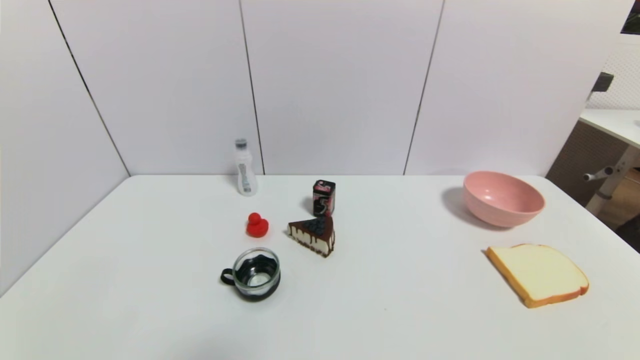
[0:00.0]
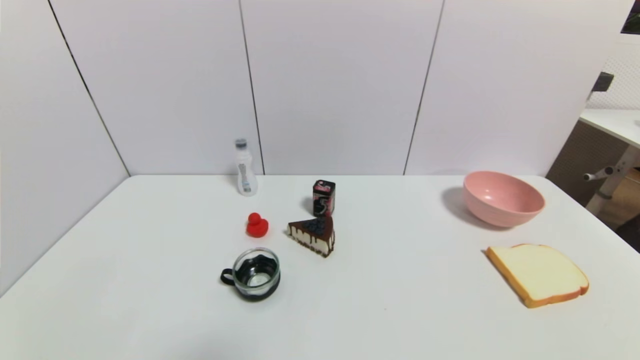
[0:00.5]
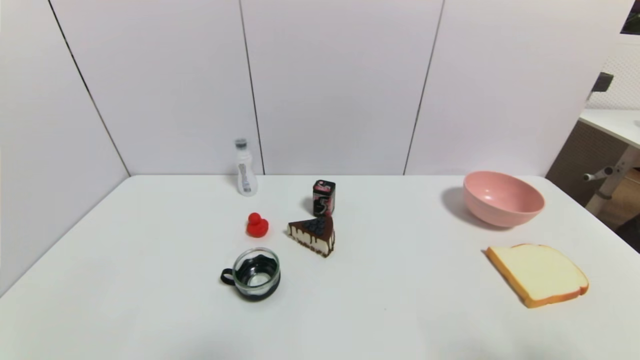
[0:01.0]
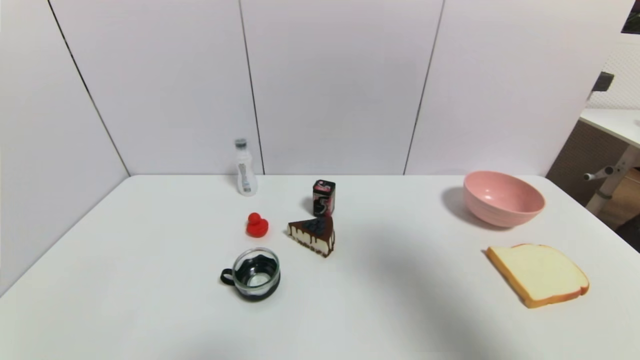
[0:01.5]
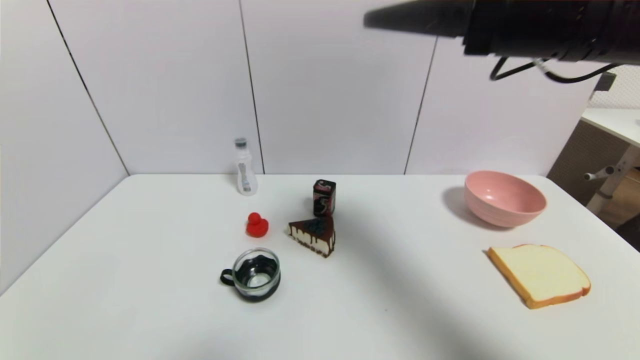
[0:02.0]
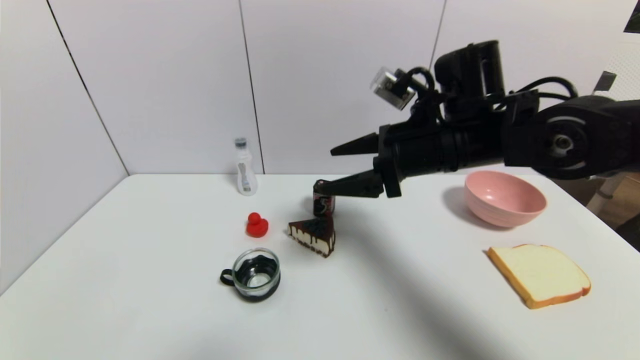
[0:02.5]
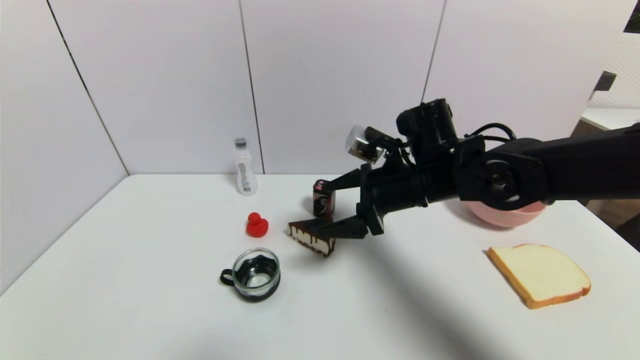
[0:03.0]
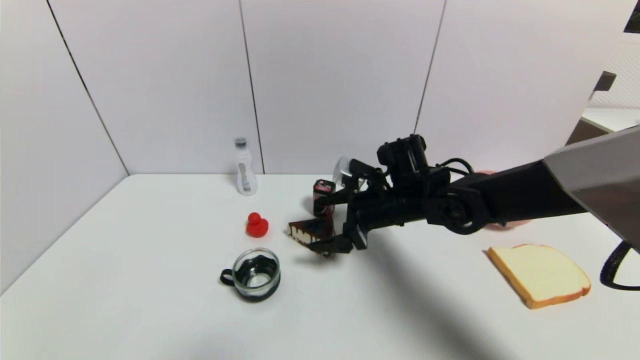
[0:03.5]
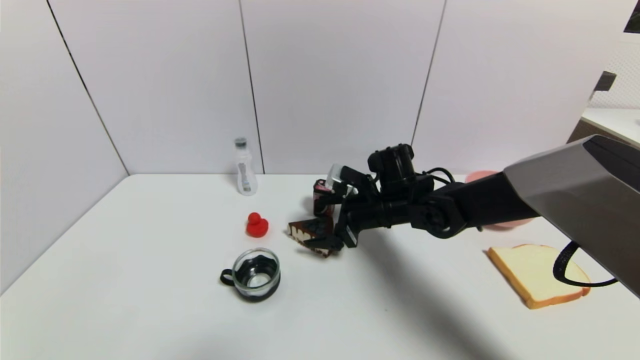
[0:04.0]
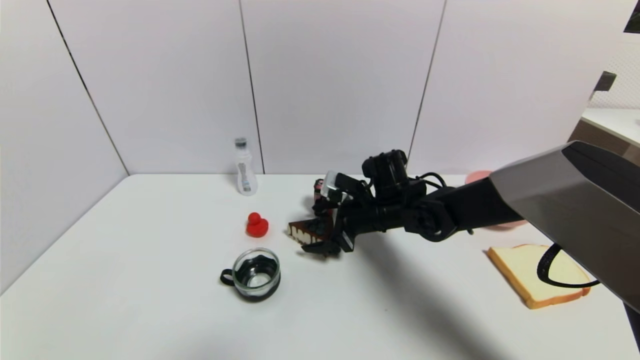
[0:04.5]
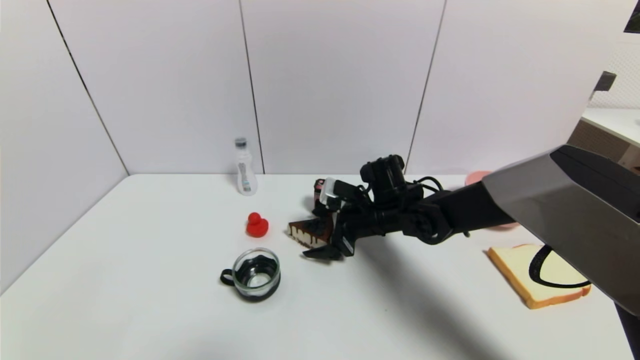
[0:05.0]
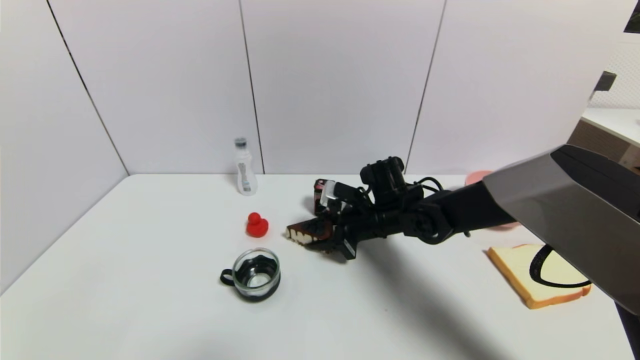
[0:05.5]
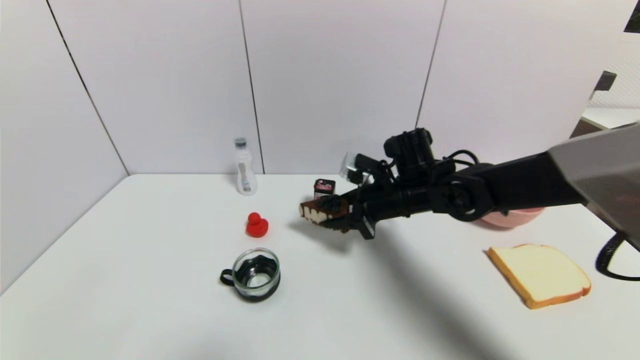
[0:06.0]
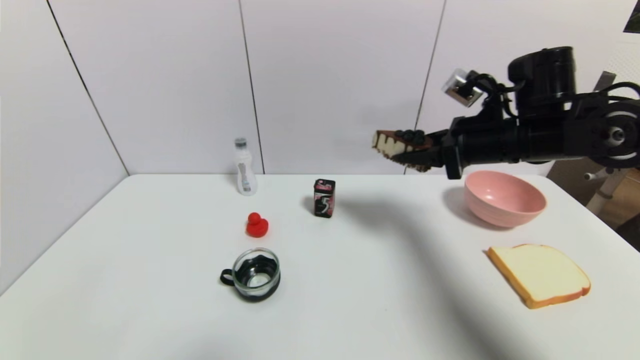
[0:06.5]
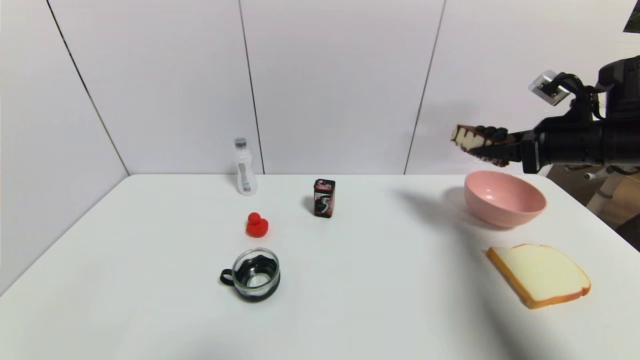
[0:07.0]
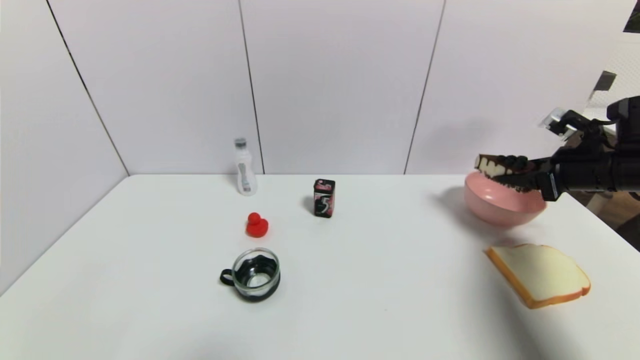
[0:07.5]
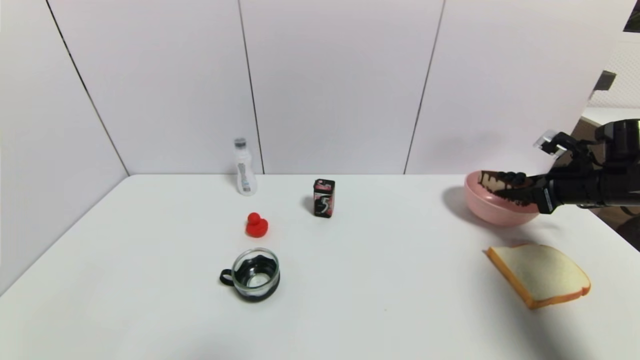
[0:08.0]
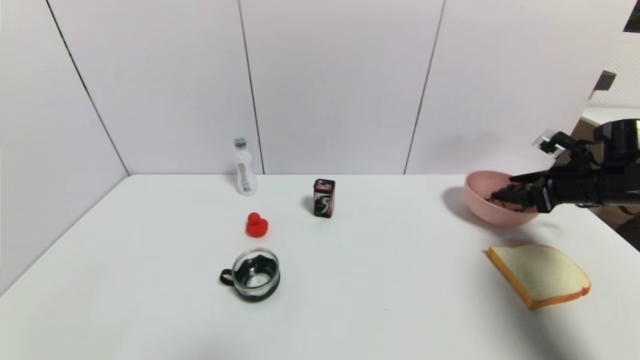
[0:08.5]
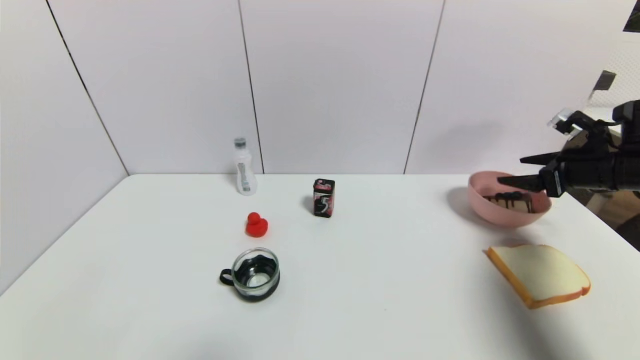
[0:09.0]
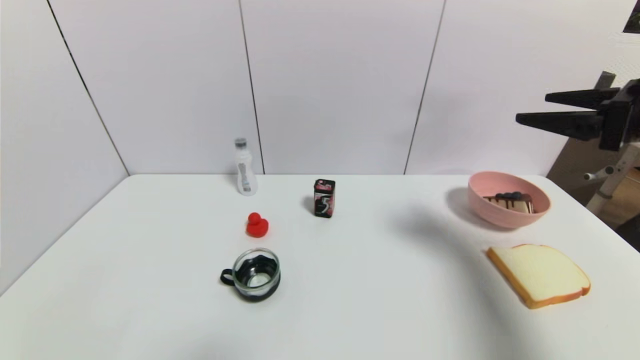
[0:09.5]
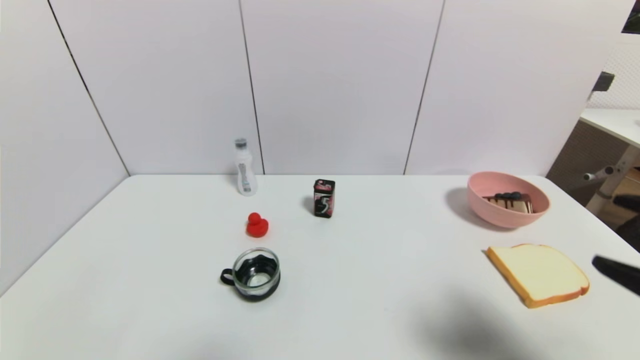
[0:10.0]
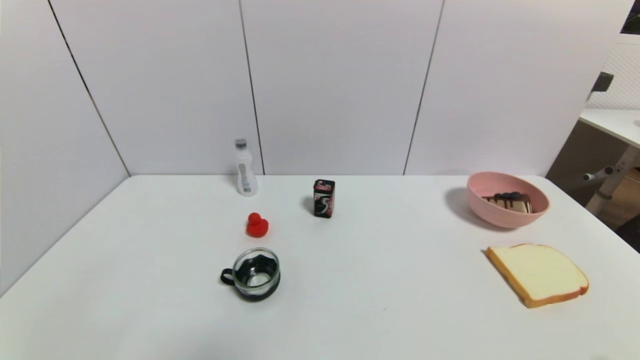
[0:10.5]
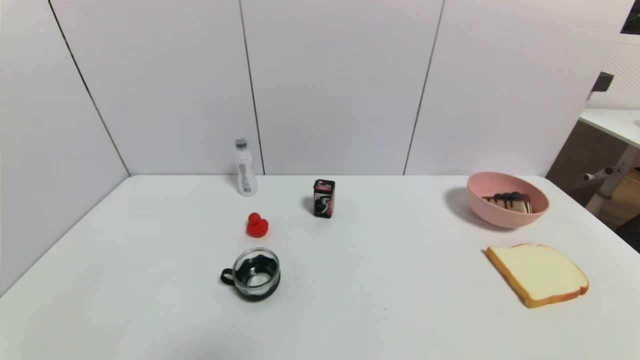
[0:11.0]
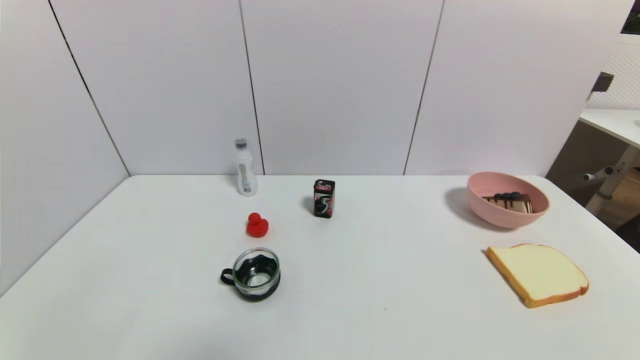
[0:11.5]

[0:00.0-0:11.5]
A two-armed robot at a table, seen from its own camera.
Task of the whole recording: use a gripper to pick the target object and place on the pink bowl.
Step, 0:00.0 to 0:05.0: Grasp the chocolate cake with the right gripper.
Step, 0:05.5 to 0:09.0: Place the chocolate cake on the pink bowl with the right gripper.
0:00.0 to 0:02.0: The right gripper is displaced upward, forward and to the left by some 40 cm.
0:02.0 to 0:04.0: The right gripper is displaced downward and forward by approximately 30 cm.
0:04.0 to 0:06.0: The right gripper closes its fingers.
0:06.0 to 0:07.5: The right gripper is displaced to the right by about 30 cm.
0:07.5 to 0:09.5: The right gripper travels upward, backward and to the left by about 15 cm, and opens up.
0:09.5 to 0:11.5: The right gripper is displaced backward and downward by some 35 cm.
